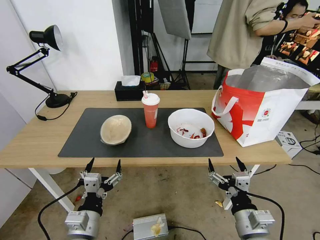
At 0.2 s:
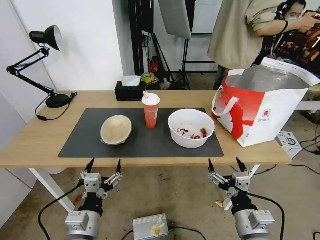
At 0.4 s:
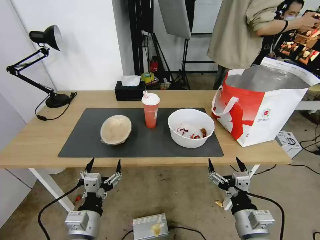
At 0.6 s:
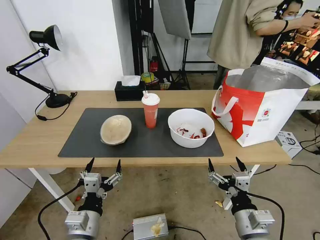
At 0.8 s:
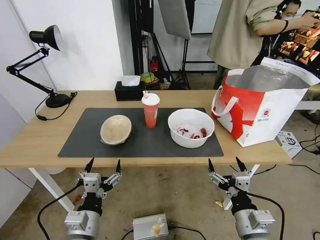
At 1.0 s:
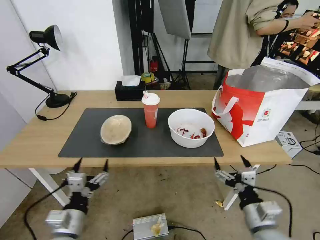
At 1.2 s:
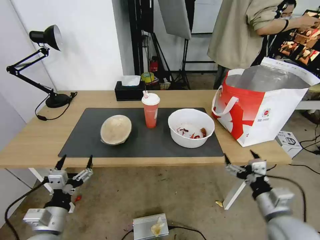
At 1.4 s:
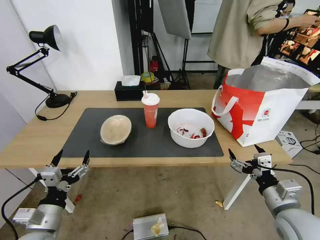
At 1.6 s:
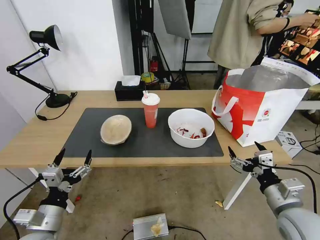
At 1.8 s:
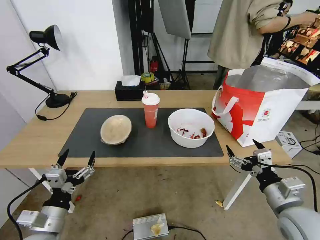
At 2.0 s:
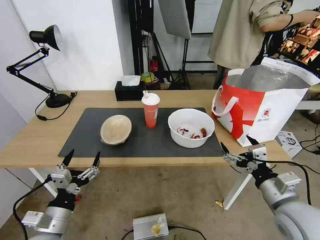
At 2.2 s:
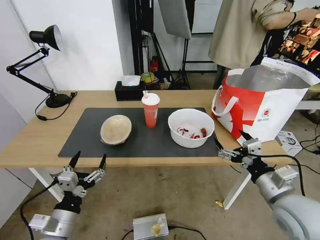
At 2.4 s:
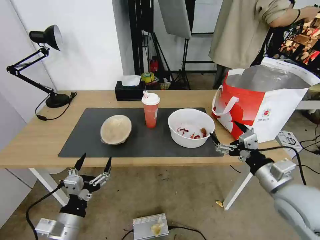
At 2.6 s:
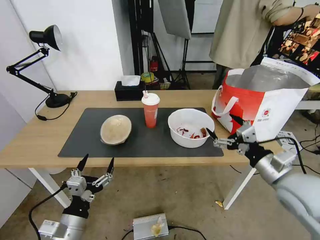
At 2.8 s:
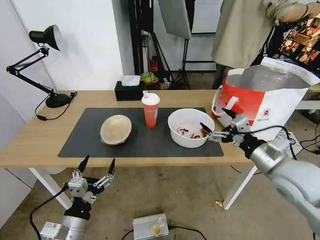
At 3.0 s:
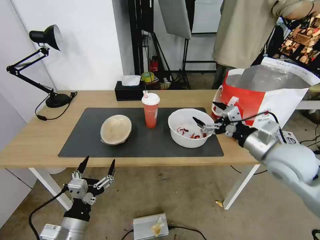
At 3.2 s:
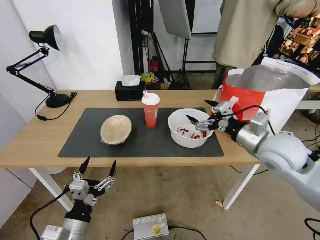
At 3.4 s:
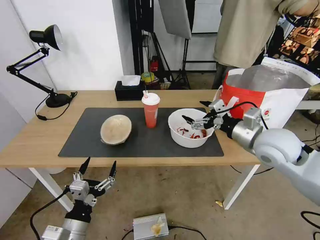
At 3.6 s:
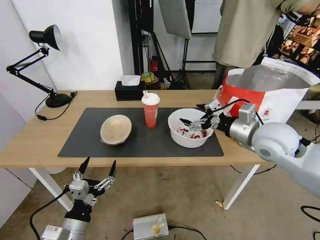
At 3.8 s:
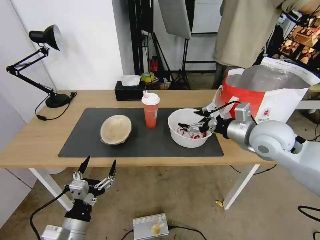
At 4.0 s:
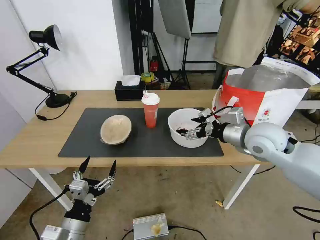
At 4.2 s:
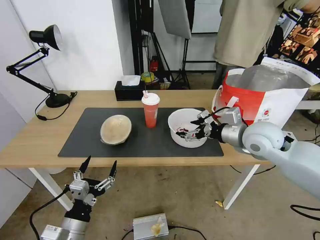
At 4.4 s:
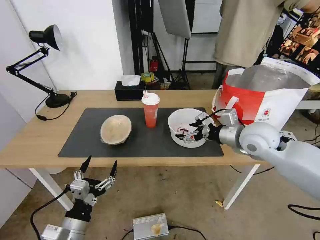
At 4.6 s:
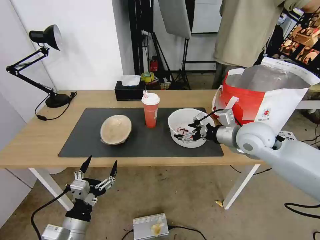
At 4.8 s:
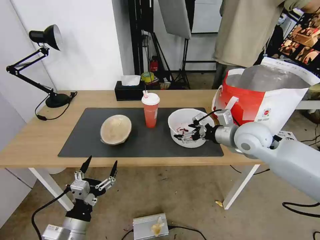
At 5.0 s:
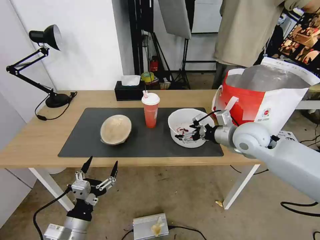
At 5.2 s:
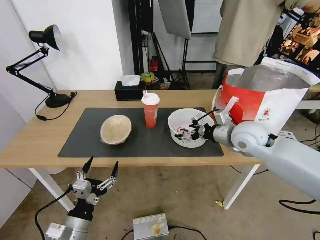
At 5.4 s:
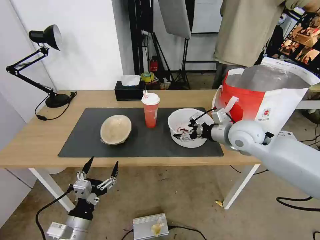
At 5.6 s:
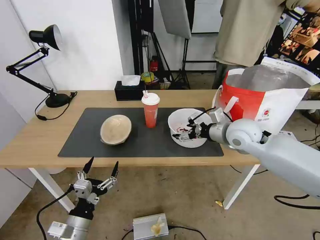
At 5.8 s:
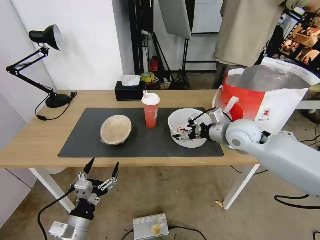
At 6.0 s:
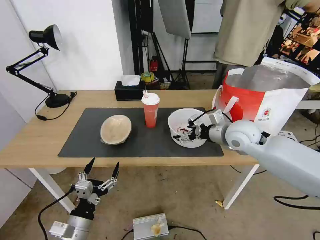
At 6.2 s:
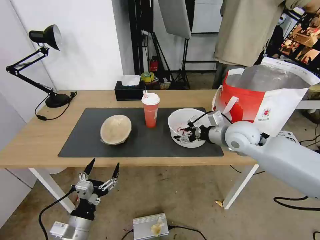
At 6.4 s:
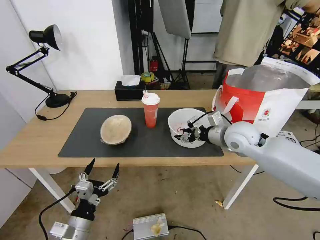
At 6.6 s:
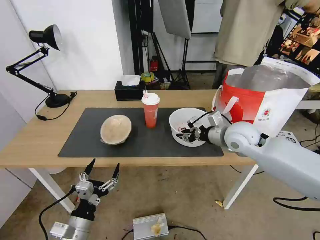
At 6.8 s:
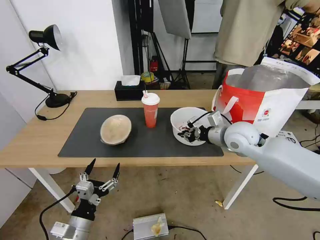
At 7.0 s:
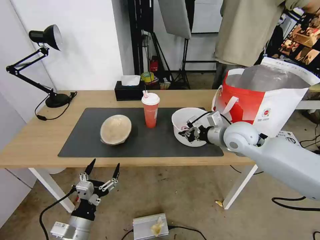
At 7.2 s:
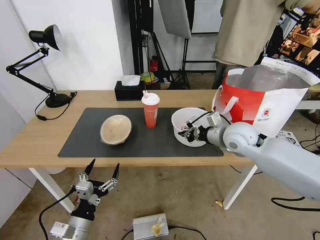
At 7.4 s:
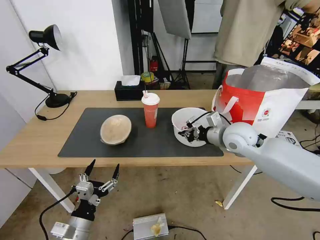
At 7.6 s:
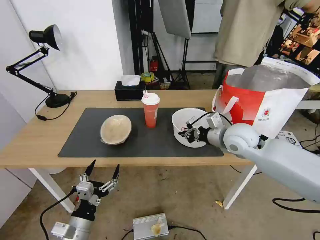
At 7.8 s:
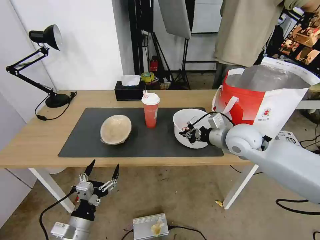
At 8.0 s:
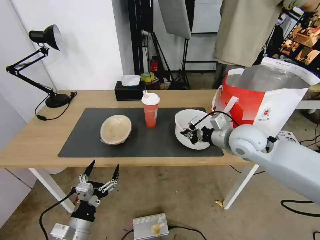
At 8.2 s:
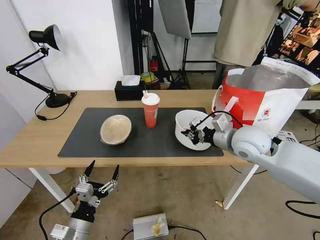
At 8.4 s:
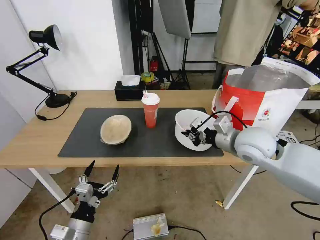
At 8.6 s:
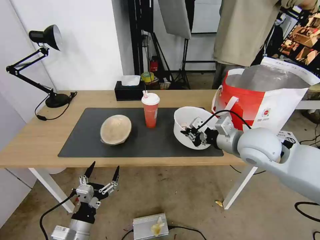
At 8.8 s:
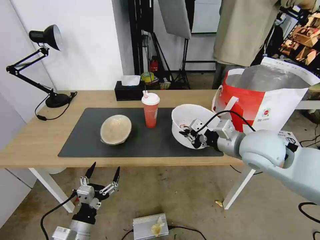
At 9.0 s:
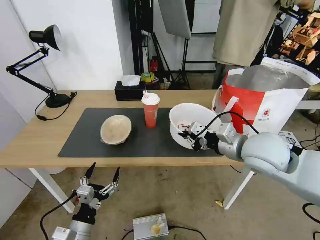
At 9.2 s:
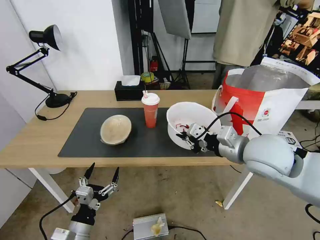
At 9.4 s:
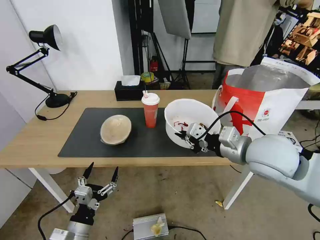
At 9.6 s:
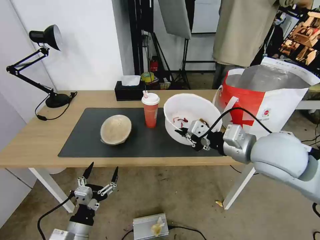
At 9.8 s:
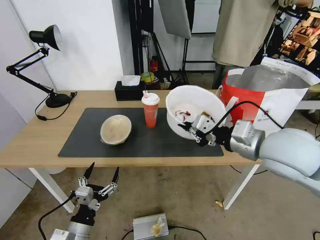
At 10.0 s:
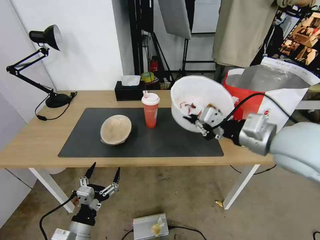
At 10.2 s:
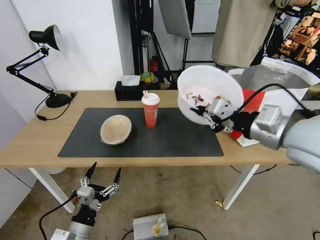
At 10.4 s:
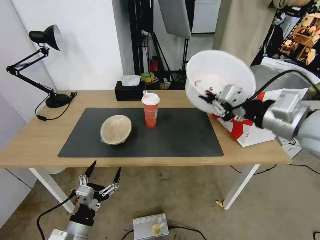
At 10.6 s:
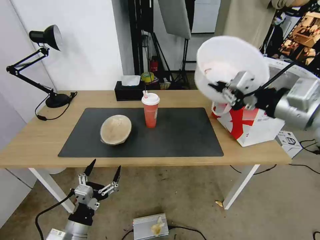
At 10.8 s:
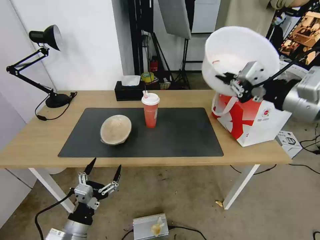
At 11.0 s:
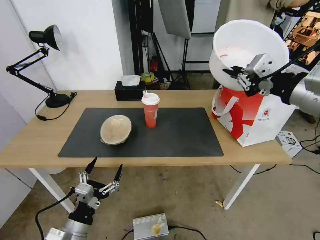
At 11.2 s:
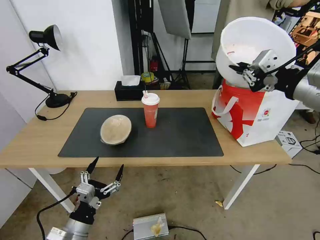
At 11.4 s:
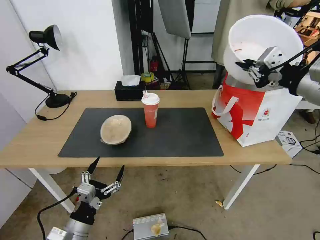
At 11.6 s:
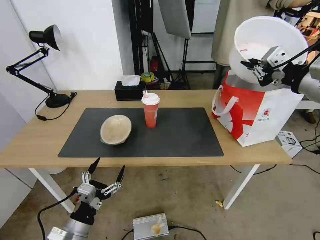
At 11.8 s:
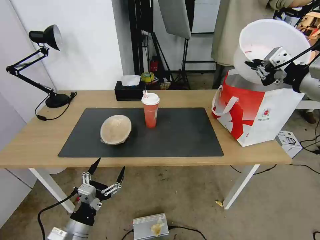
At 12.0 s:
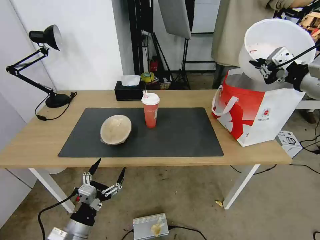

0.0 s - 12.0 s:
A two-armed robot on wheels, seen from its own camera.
Task of the whole recording: Pick up the trash from the table and place it into the takeout bag.
1.6 s - 3.0 s: The right gripper shifts some 15 cm forward and upward. The left gripper is displaced to the right by approximately 5 cm.
3.0 s - 4.4 s: The right gripper heads forward, covering about 10 cm.
4.4 s - 6.0 s: The grippers make only small movements.
6.0 s - 7.6 s: The right gripper closes up.
7.6 s - 9.0 s: The right gripper is displaced backward and upward by about 10 cm.
9.0 s - 10.4 s: The right gripper is displaced upward by roughly 10 cm.
10.4 s - 12.0 s: The right gripper heads to the right and forward, covering roughly 15 cm.

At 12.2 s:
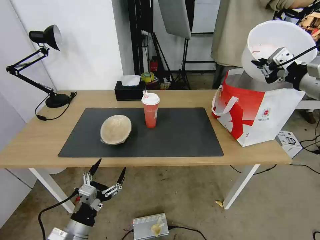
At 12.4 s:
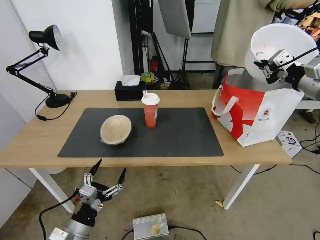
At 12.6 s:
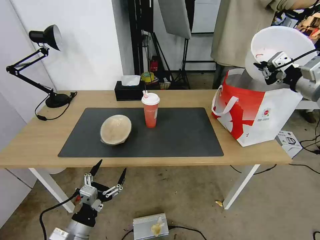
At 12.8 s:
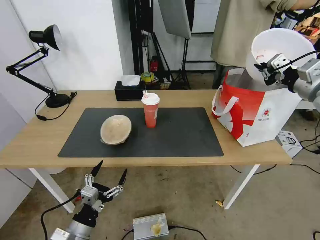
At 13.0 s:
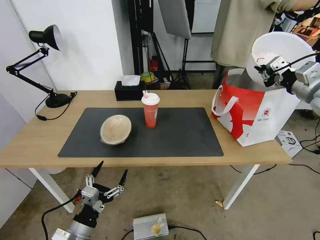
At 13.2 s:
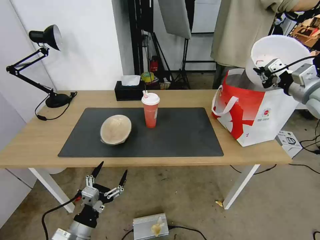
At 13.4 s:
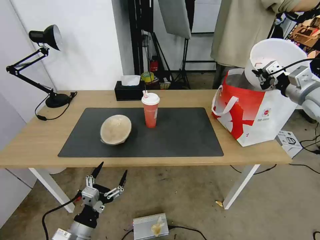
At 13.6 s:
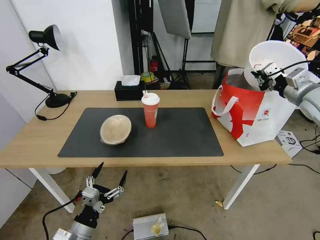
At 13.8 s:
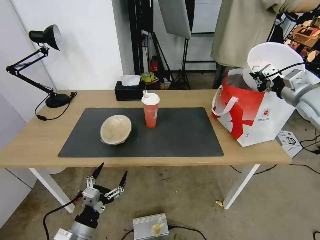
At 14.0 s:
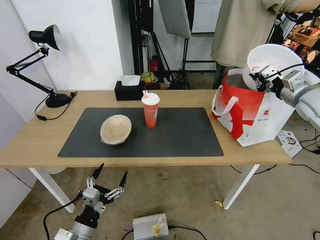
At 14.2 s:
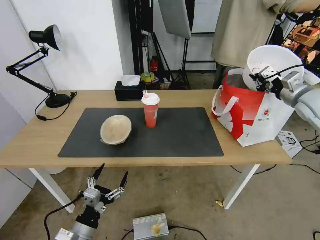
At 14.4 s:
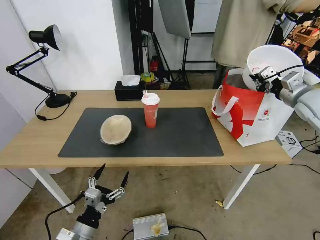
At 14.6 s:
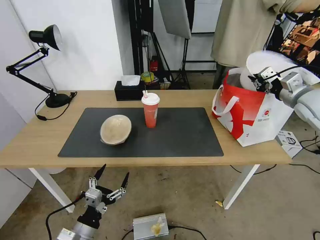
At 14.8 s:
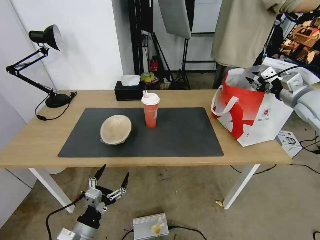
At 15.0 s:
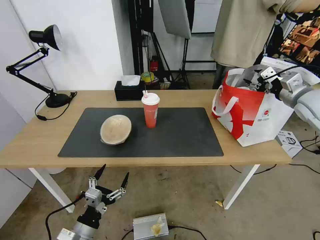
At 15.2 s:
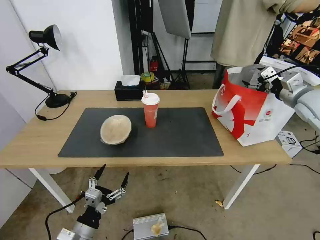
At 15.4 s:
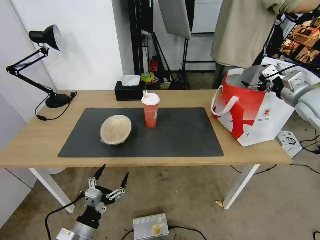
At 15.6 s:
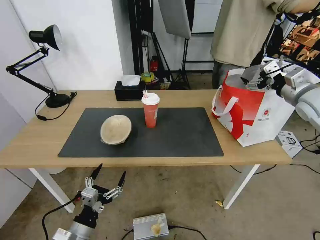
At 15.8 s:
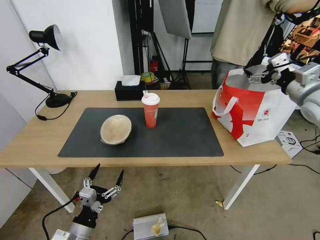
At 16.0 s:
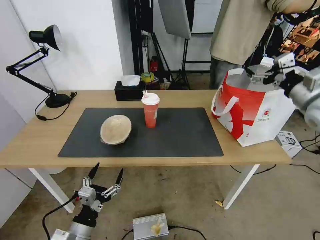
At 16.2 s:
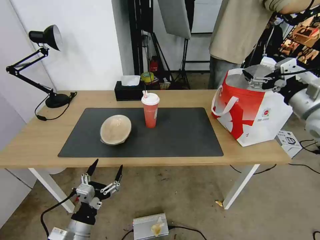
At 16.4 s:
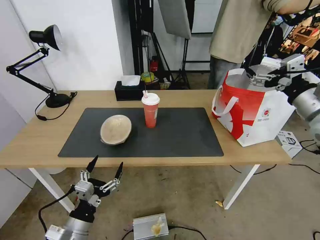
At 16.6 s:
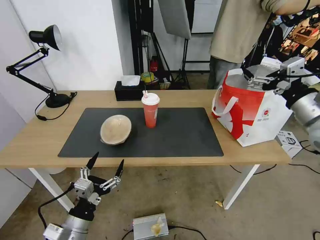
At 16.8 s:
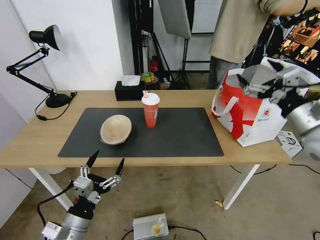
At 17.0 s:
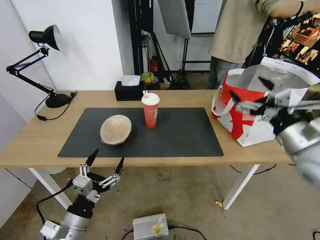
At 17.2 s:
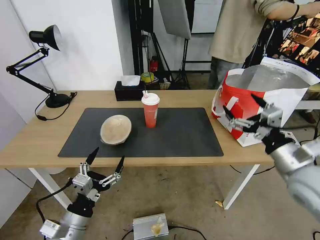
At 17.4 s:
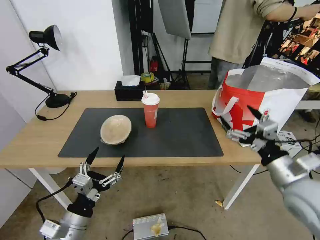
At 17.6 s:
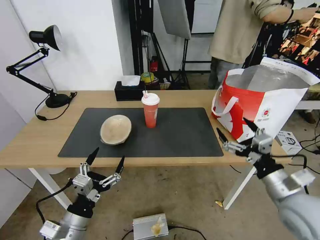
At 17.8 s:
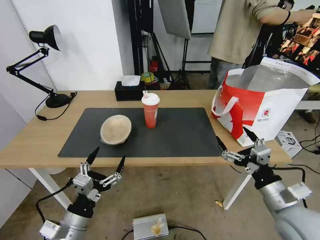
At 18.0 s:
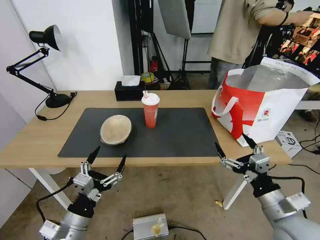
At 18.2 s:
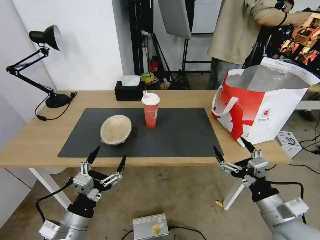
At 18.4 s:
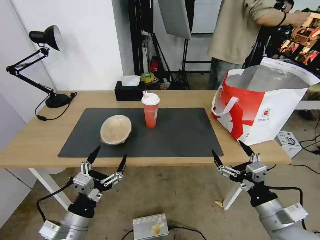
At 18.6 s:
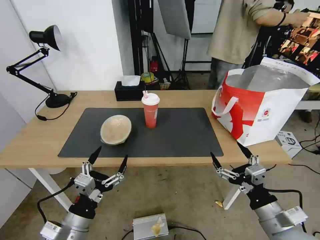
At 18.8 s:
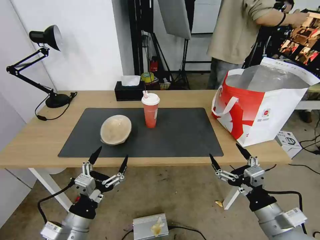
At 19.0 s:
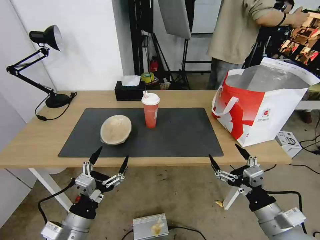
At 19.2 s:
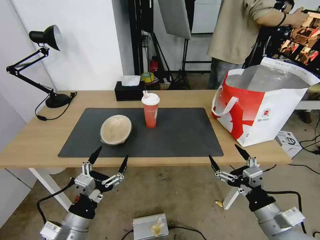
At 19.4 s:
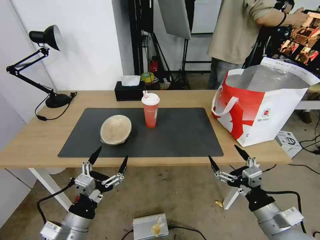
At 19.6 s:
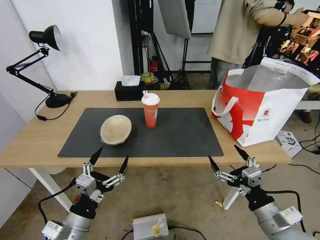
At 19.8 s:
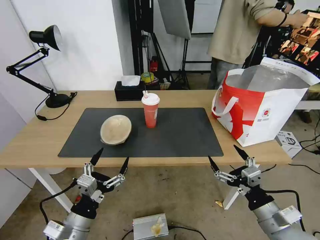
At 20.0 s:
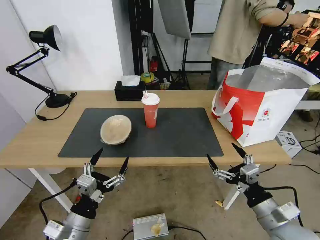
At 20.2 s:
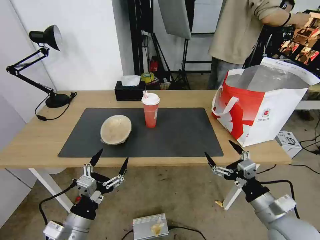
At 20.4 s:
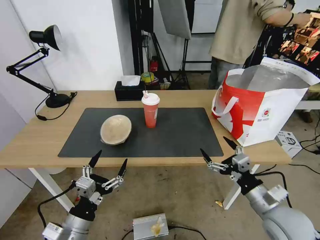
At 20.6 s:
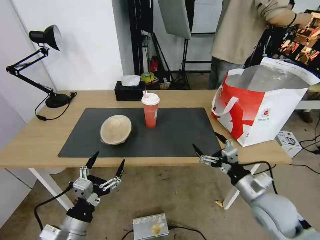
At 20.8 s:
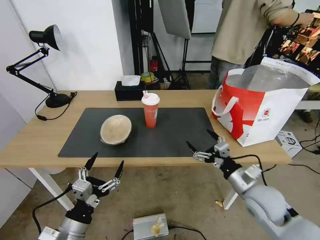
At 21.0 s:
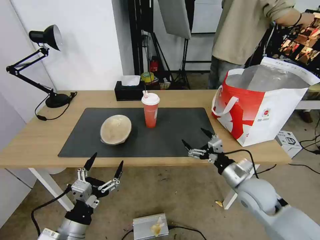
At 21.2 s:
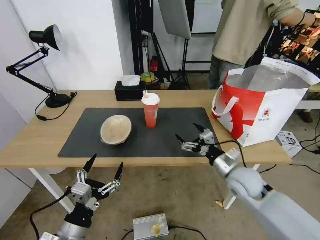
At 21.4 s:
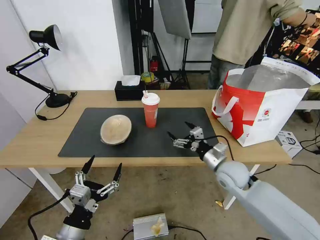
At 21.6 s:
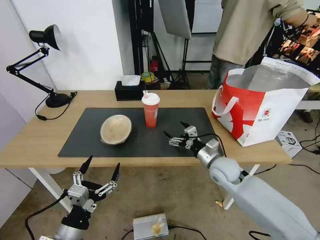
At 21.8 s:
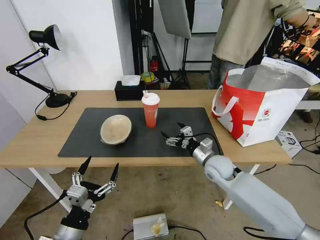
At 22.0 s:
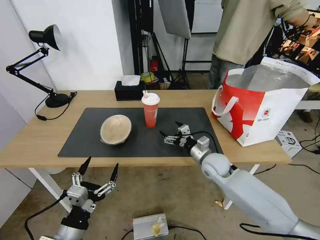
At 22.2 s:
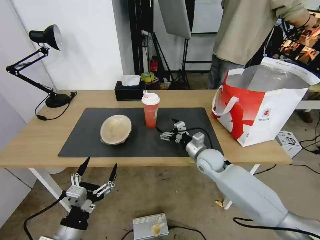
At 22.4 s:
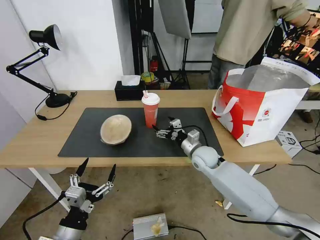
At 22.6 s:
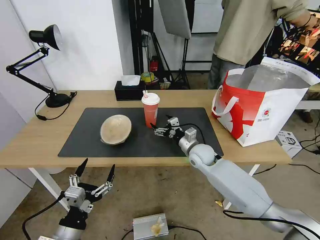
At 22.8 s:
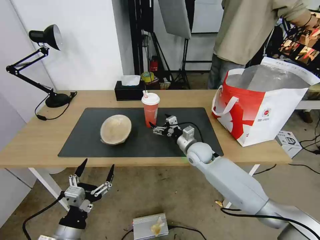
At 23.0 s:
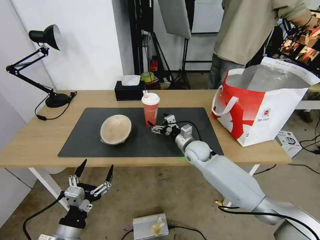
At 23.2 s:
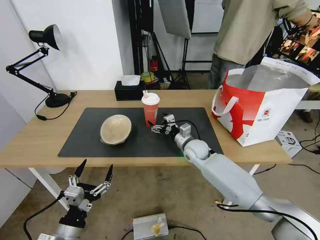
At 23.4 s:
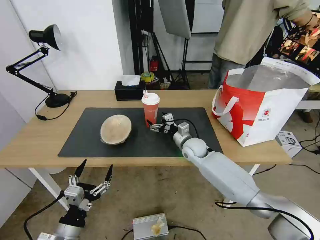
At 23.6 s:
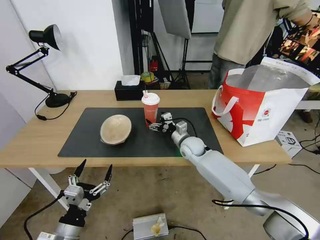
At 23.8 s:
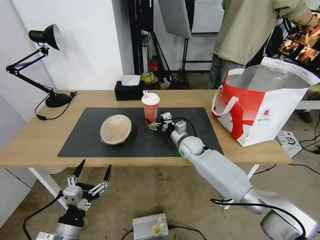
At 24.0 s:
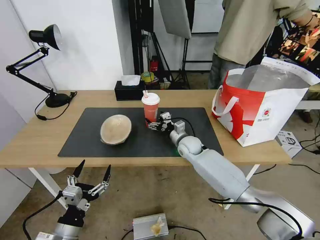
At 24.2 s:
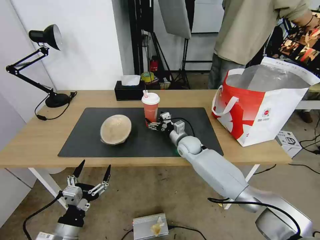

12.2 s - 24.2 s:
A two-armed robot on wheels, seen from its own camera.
Task of the whole recording: Pick up the trash from the table and place it into the takeout bag.
12.2 s - 13.8 s: The right gripper shifts about 10 cm downward and forward.
13.8 s - 15.2 s: The right gripper opens up.
15.2 s - 16.6 s: The right gripper goes roughly 15 cm backward and to the left.
16.6 s - 18.2 s: The right gripper moves downward, backward and to the left, about 25 cm.
18.2 s - 19.8 s: The grippers move only a little.
19.8 s - 21.2 s: The right gripper moves forward, approximately 15 cm.
21.2 s - 22.6 s: The right gripper is displaced forward and to the left by approximately 15 cm.
22.6 s - 24.2 s: The right gripper is displaced forward by approximately 5 cm.
